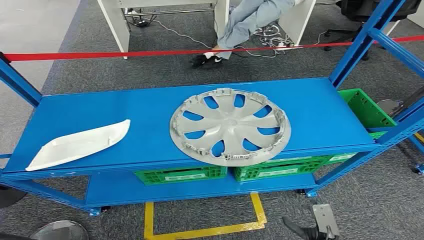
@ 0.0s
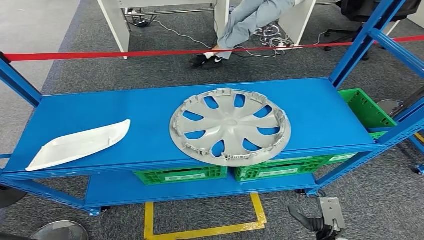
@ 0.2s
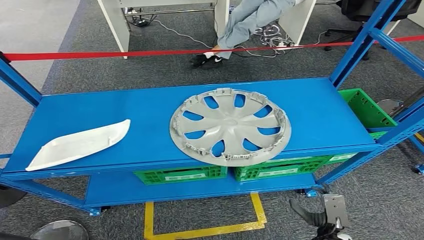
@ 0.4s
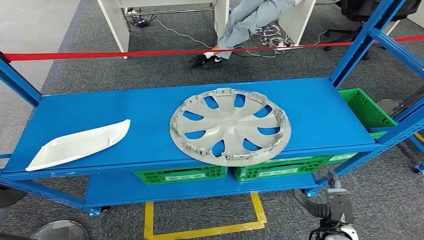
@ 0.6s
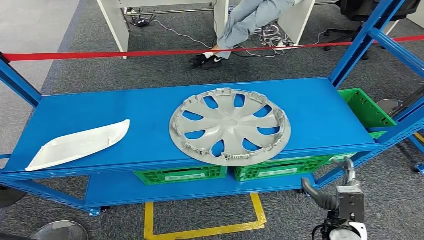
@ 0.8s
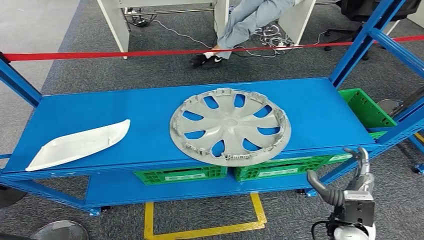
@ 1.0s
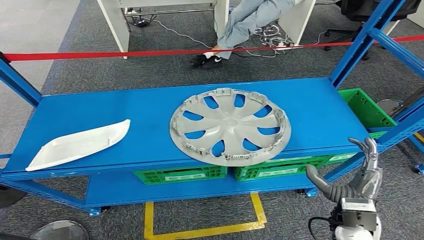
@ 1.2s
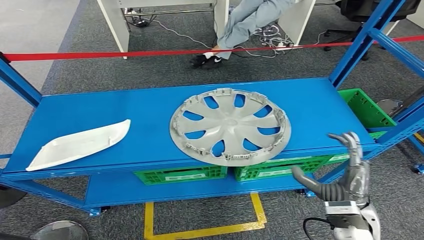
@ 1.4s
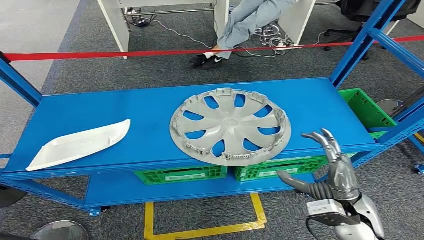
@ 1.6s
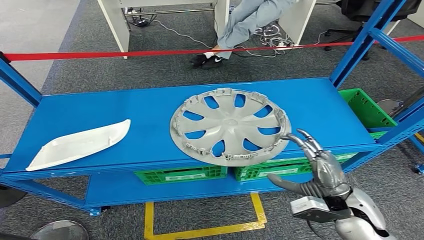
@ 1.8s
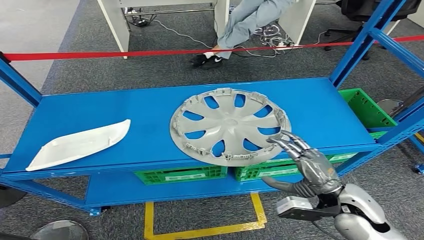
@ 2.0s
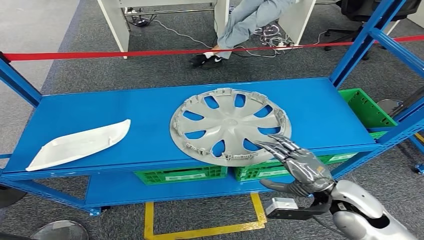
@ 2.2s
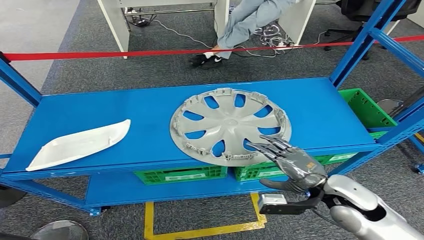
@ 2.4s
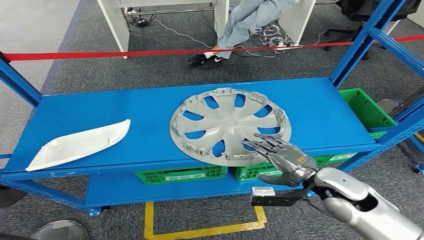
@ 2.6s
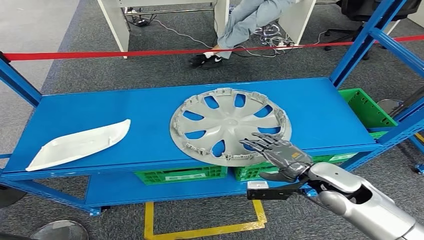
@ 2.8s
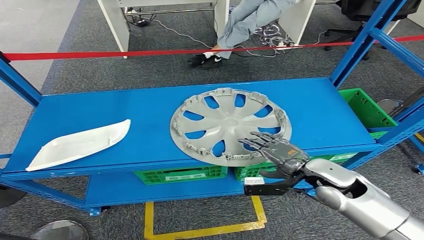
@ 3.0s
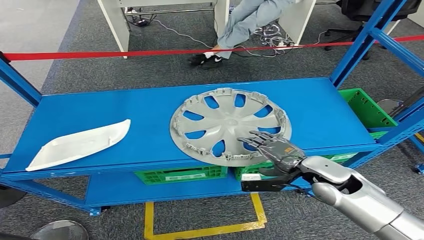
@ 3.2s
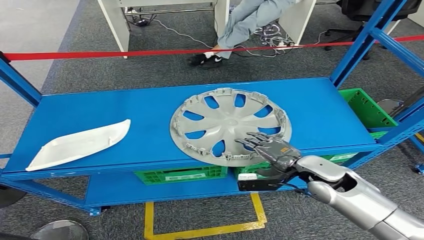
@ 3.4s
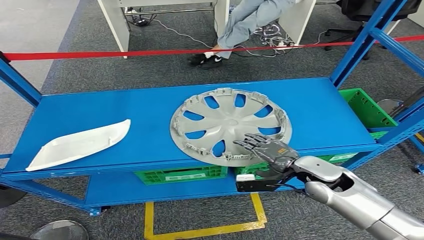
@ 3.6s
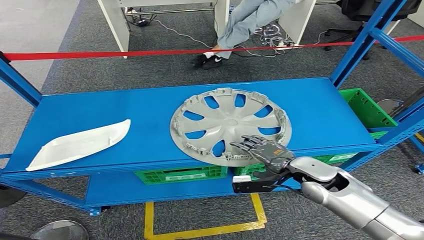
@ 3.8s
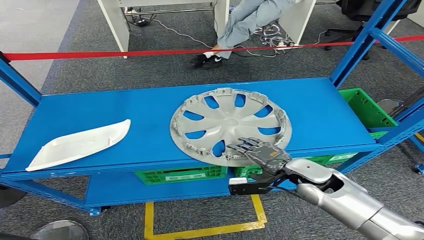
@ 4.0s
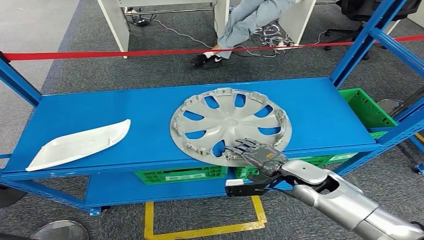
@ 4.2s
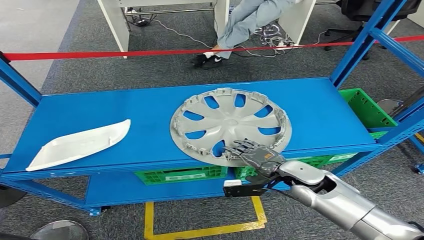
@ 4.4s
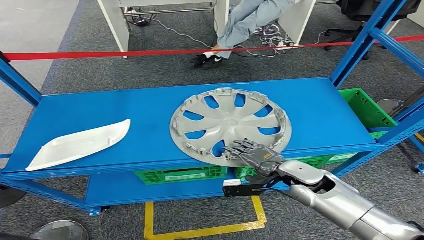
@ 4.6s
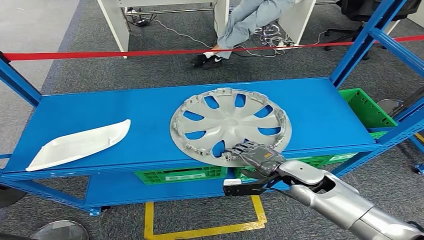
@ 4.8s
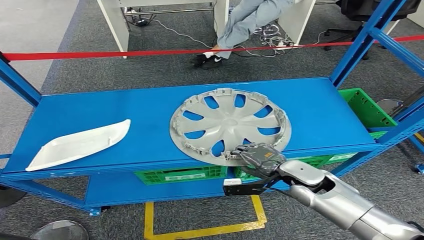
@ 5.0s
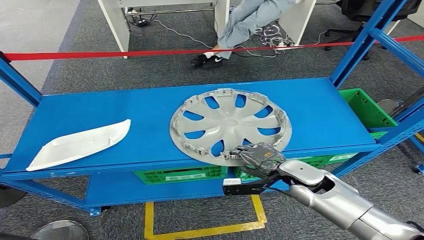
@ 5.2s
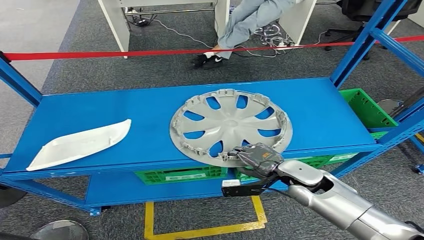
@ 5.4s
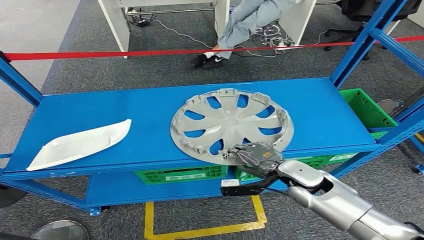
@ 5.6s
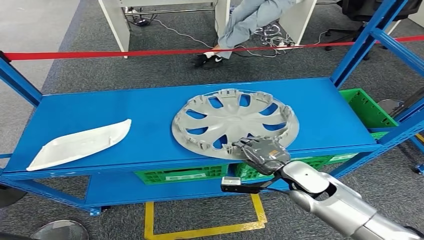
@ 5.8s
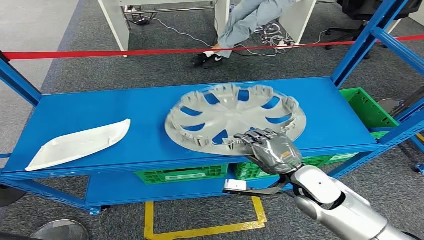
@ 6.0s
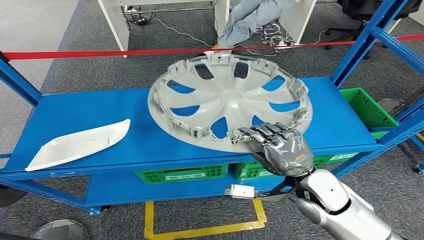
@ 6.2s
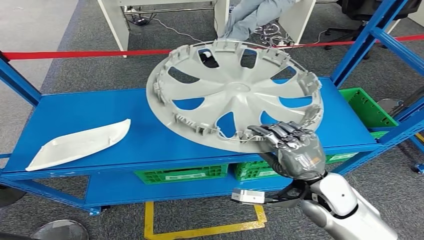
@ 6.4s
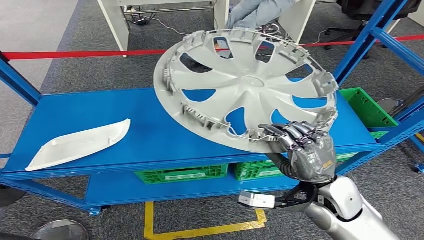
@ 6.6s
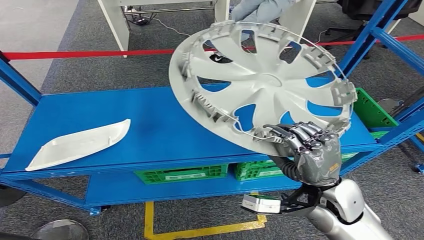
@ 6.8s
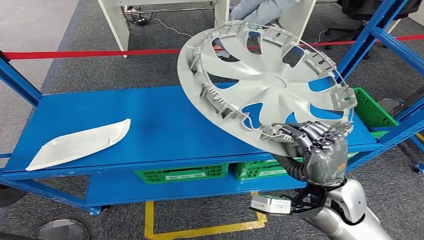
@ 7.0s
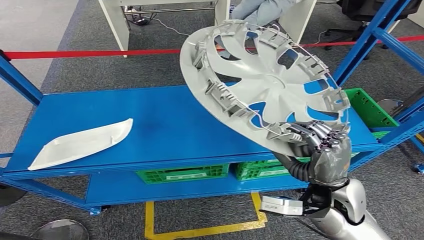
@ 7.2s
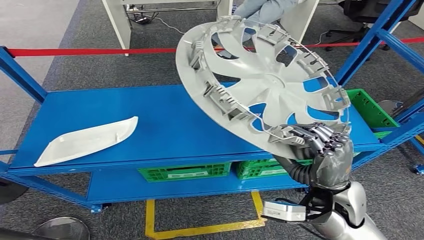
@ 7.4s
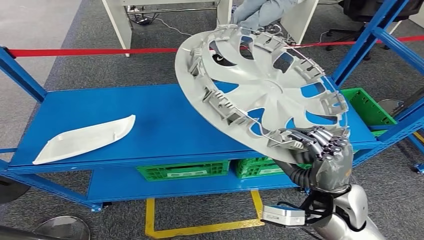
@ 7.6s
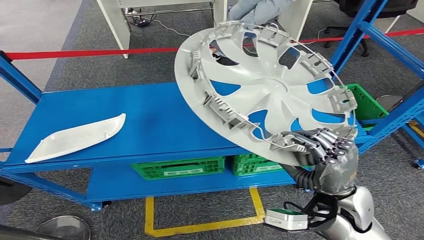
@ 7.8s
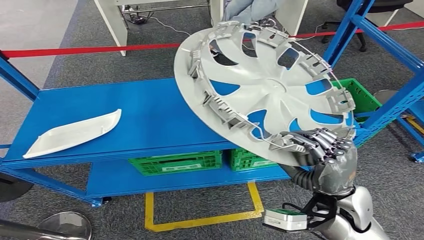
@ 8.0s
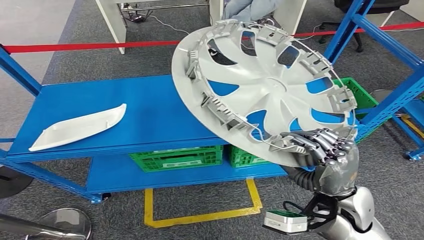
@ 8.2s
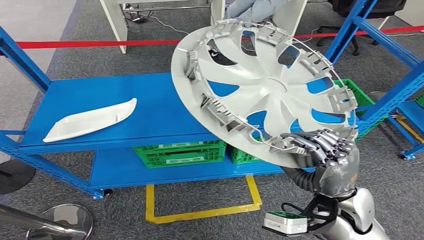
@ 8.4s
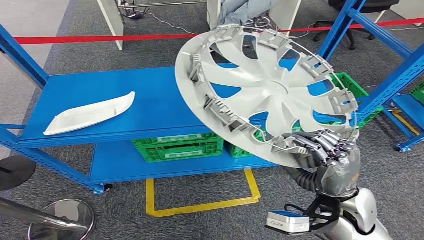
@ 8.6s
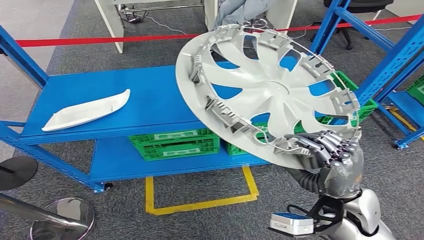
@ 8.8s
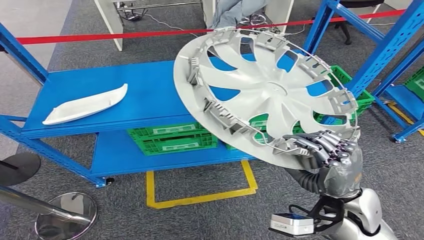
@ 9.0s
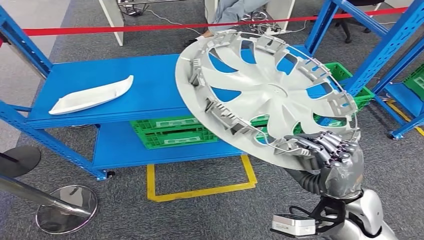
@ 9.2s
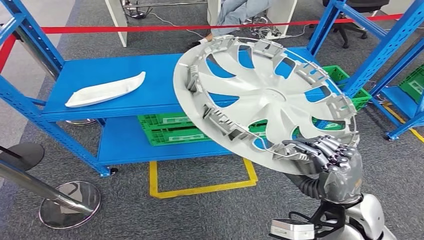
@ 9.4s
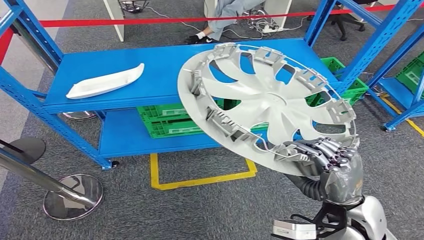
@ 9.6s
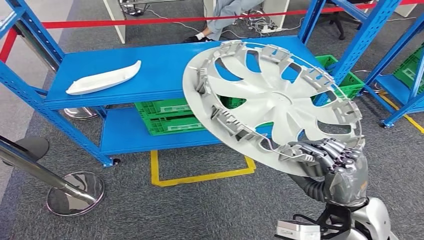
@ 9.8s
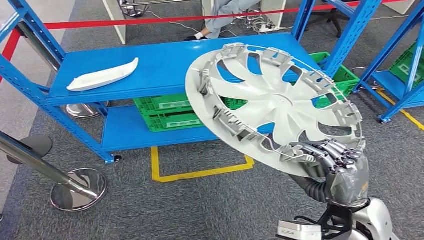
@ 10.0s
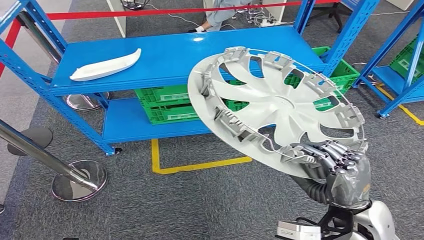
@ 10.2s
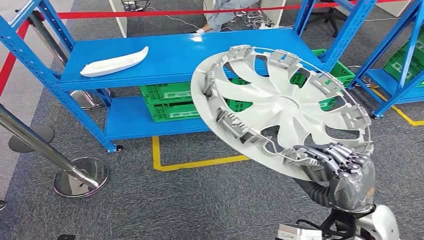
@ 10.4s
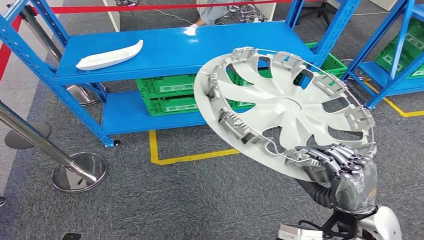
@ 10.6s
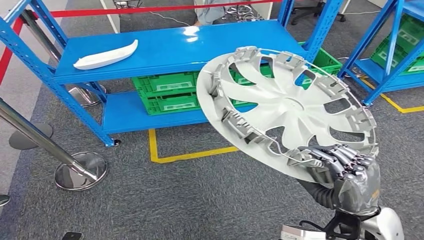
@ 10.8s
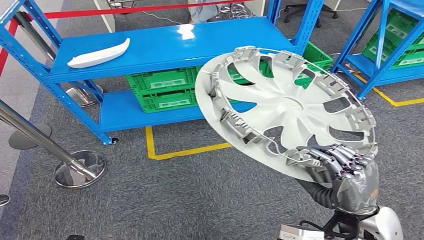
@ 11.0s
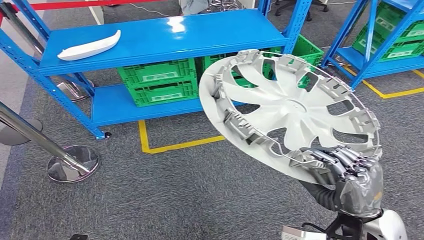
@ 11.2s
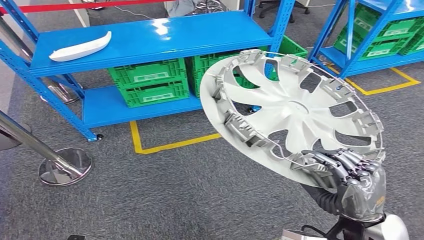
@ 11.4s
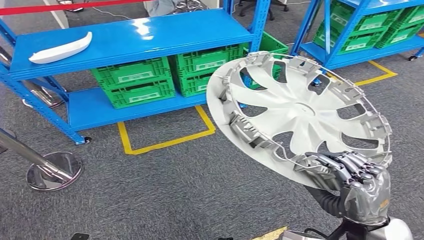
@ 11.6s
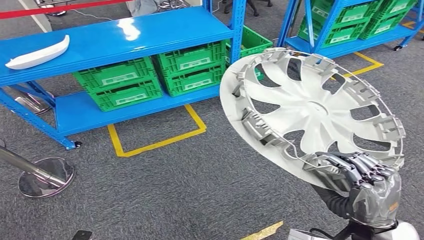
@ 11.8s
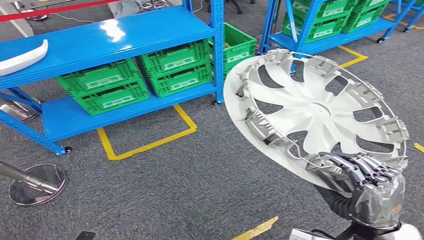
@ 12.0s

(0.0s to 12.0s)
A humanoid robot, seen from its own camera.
1.6s - 3.0s: The left hand moves approximately 5 cm, while the right hand travels forward by approximately 10 cm.
3.0s - 4.4s: The right hand ends up approximately 5 cm from where it was.
4.4s - 6.0s: The right hand shifts by some 5 cm.

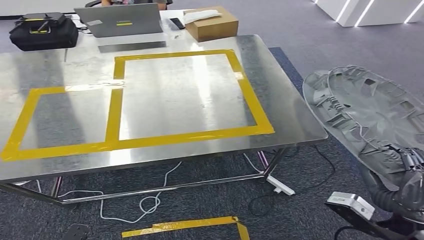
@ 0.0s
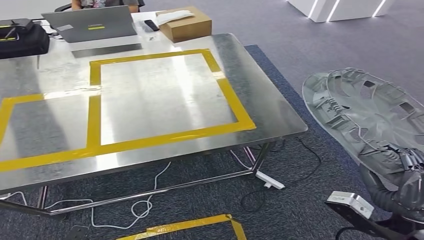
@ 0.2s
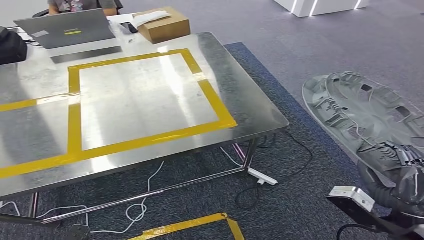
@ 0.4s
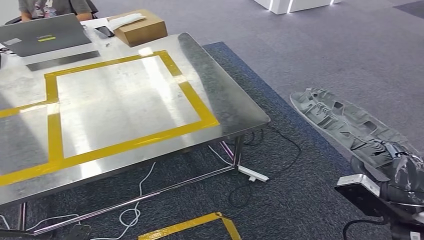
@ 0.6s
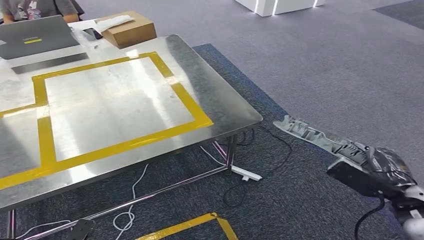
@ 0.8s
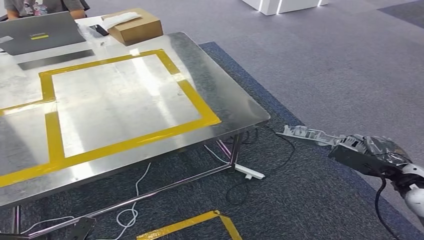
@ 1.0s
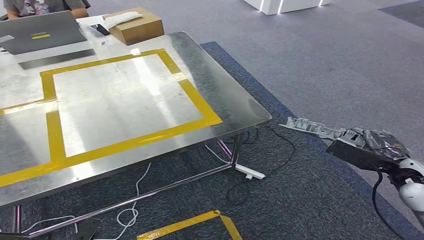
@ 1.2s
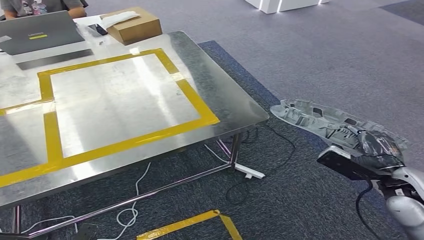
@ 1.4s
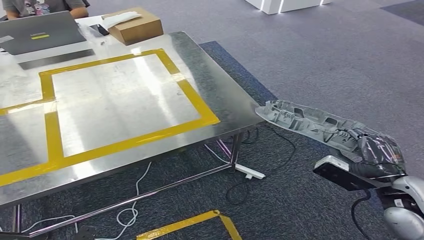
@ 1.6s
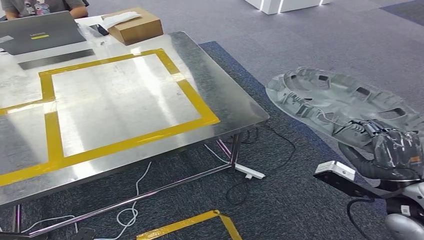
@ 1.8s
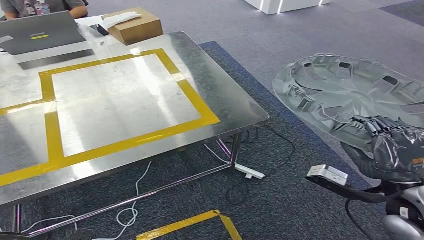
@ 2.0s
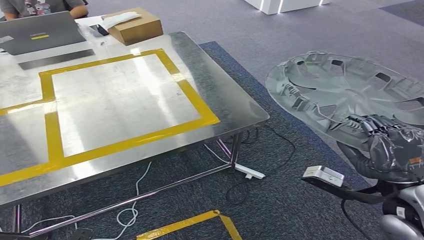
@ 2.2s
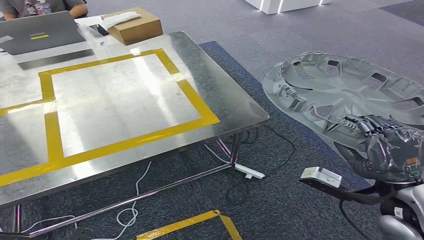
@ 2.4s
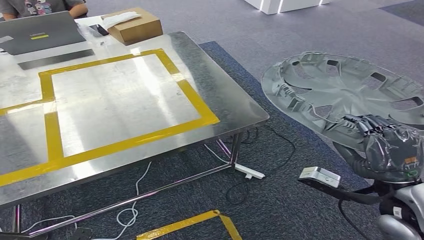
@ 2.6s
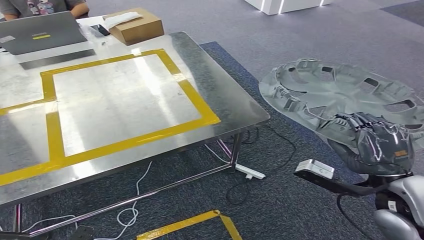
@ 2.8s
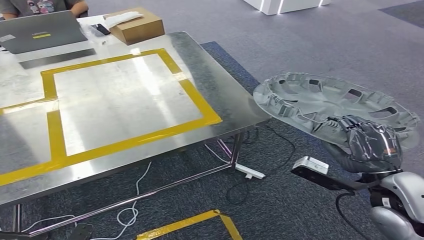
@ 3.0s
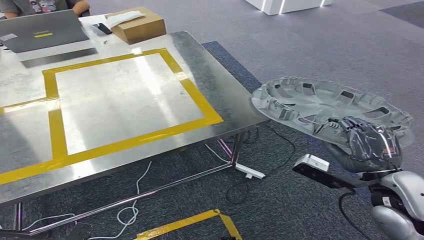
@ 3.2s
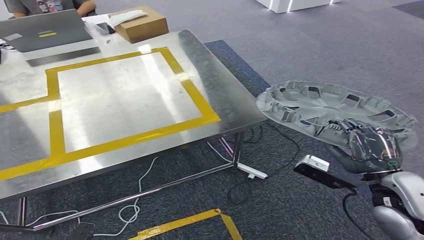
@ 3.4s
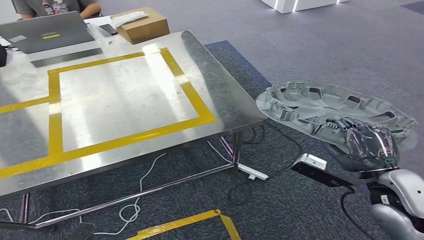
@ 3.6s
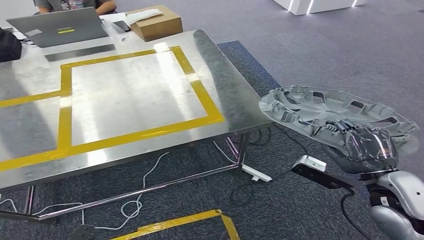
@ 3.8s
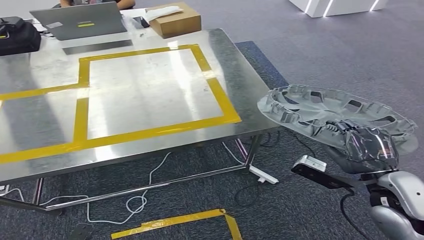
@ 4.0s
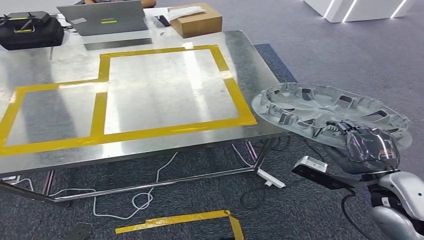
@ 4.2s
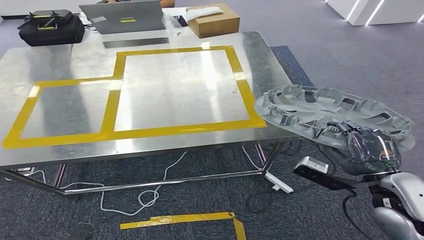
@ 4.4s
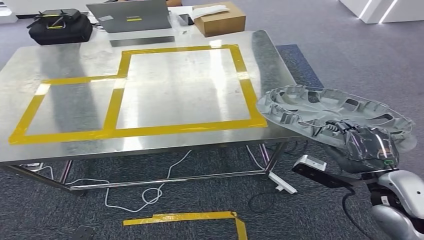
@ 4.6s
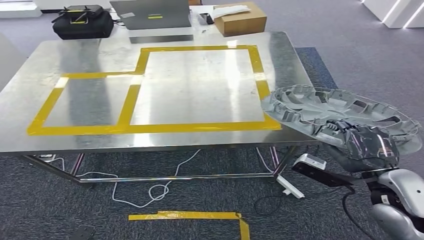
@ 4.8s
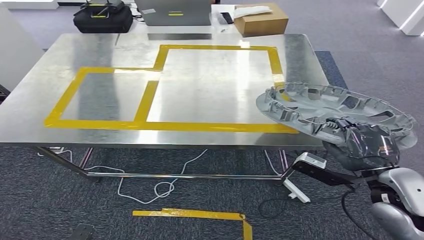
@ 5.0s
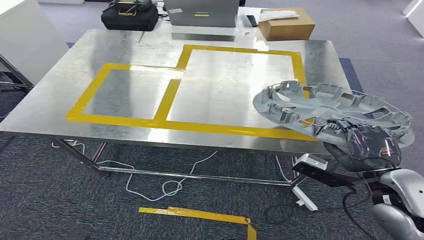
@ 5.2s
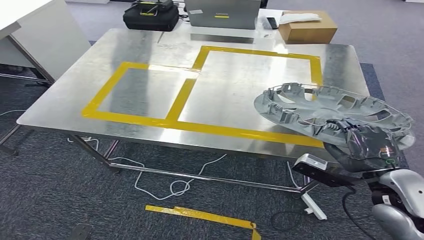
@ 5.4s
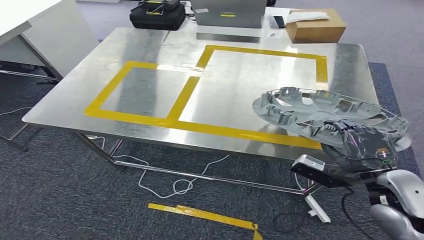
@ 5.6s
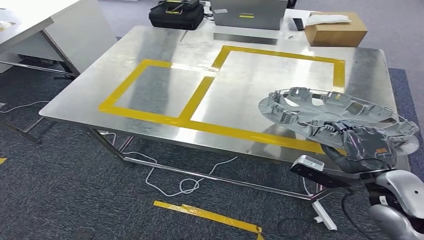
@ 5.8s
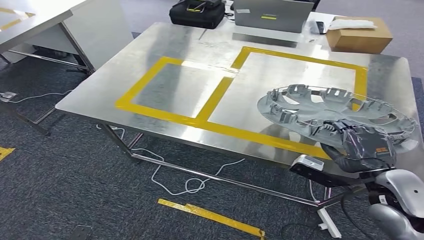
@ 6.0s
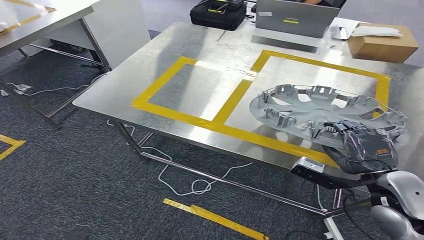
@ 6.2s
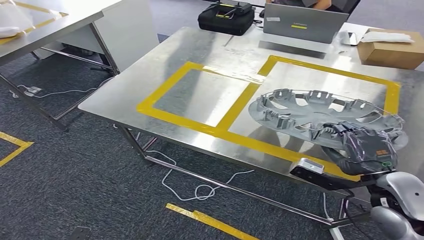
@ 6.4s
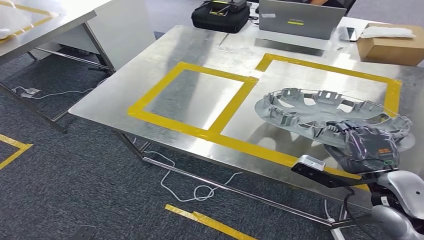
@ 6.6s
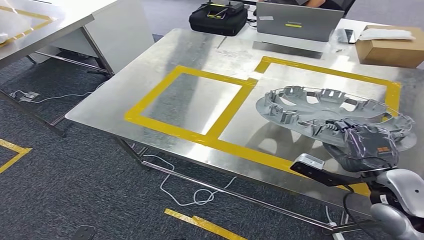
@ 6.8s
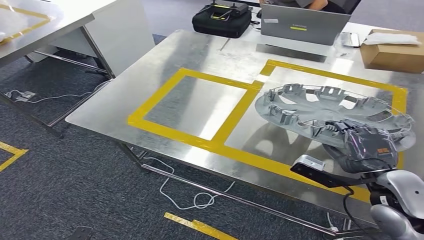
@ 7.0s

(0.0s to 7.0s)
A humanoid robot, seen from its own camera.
Step, 0.0s - 3.6s: Move the small parts to the workbench.
1.4s - 2.8s: The right hand goes some 10 cm upward and to the left.
